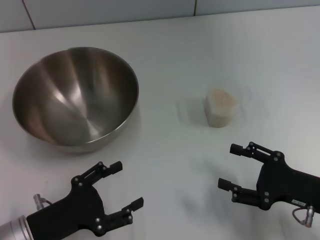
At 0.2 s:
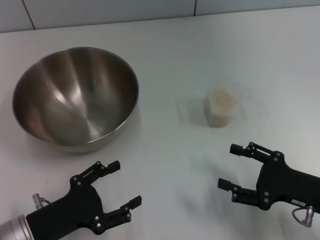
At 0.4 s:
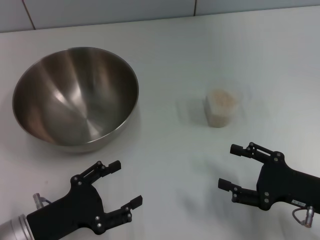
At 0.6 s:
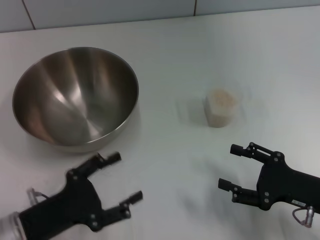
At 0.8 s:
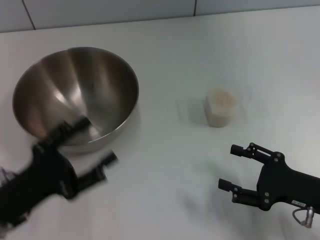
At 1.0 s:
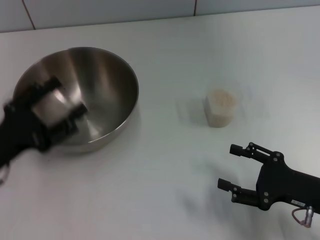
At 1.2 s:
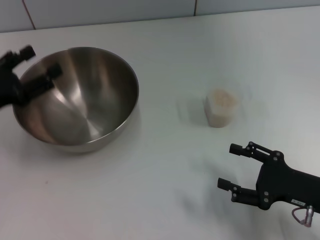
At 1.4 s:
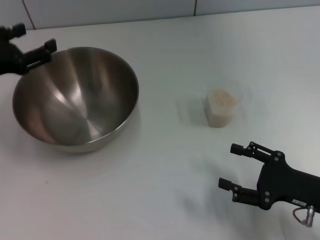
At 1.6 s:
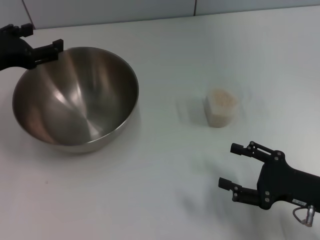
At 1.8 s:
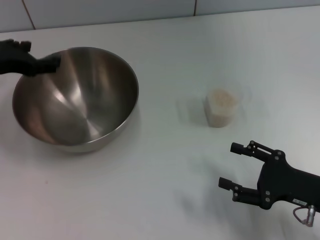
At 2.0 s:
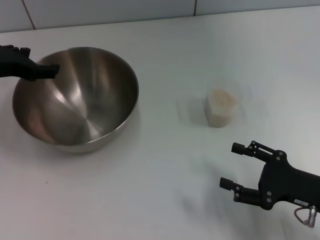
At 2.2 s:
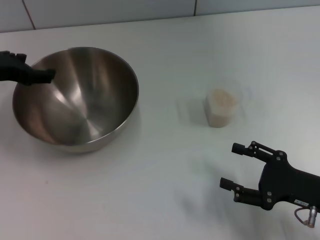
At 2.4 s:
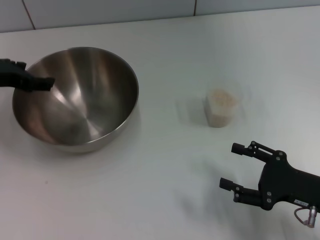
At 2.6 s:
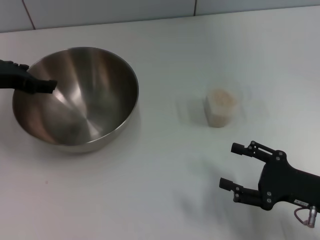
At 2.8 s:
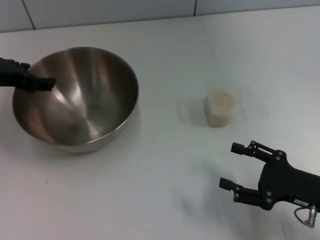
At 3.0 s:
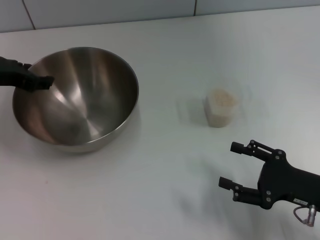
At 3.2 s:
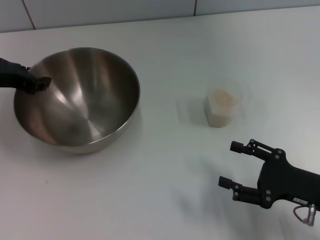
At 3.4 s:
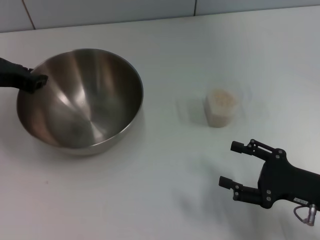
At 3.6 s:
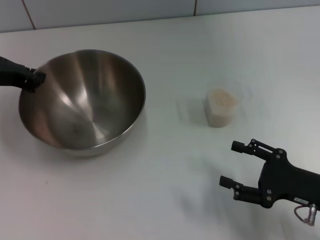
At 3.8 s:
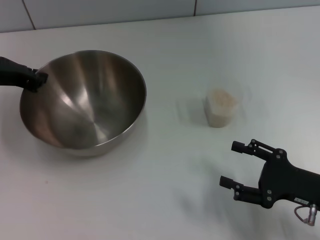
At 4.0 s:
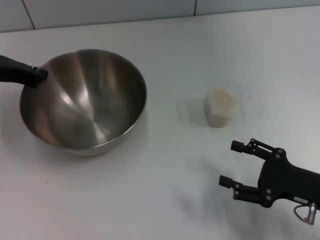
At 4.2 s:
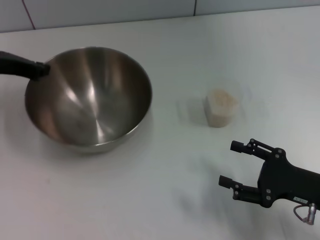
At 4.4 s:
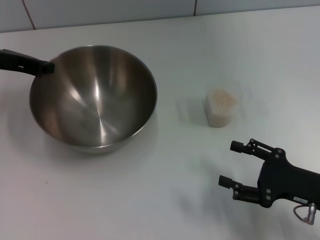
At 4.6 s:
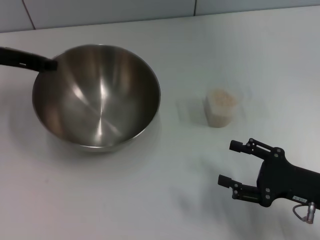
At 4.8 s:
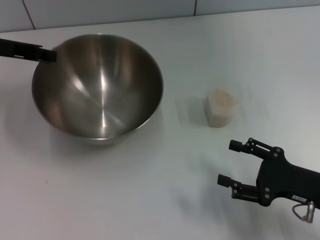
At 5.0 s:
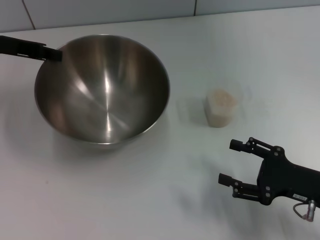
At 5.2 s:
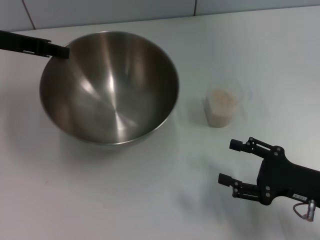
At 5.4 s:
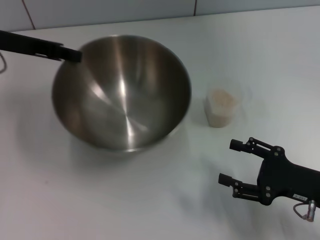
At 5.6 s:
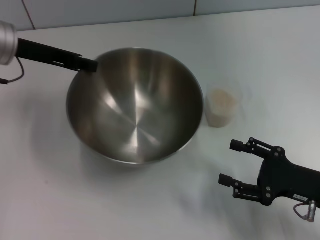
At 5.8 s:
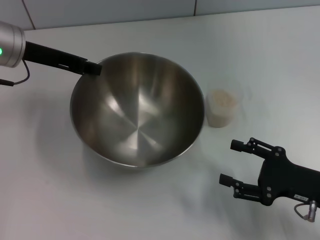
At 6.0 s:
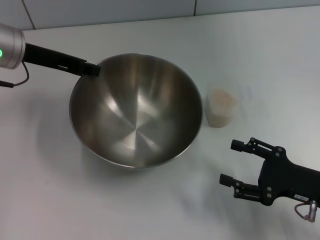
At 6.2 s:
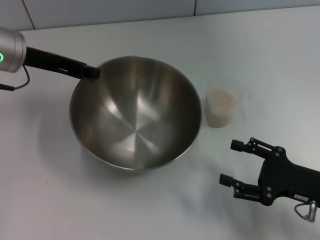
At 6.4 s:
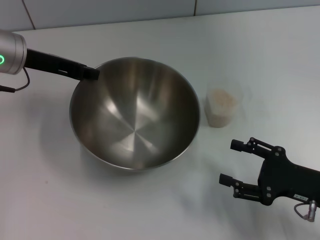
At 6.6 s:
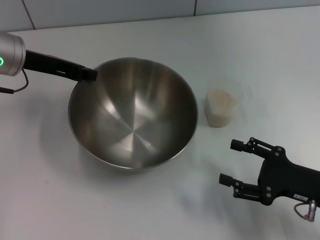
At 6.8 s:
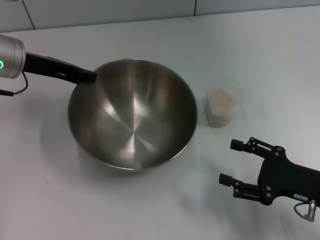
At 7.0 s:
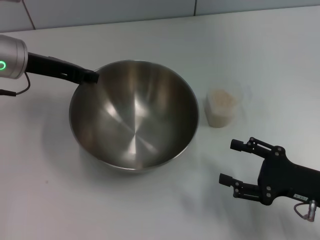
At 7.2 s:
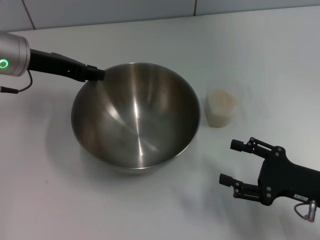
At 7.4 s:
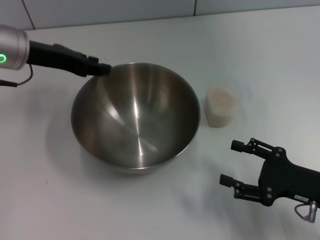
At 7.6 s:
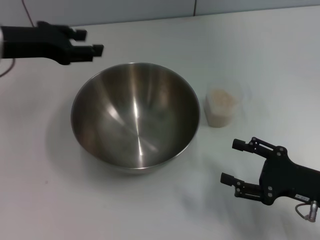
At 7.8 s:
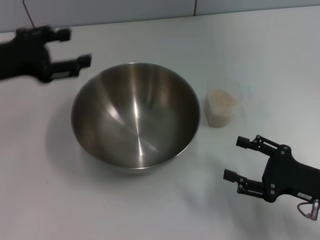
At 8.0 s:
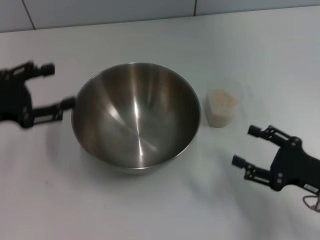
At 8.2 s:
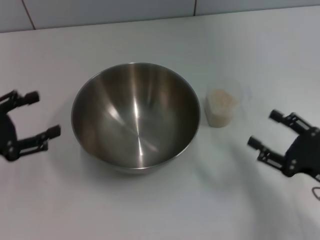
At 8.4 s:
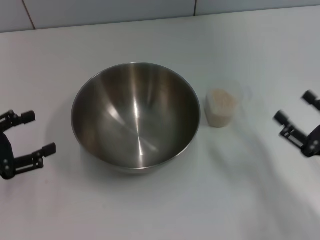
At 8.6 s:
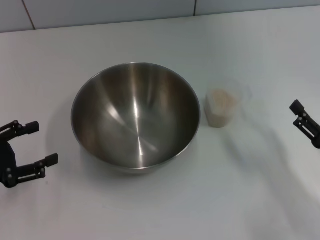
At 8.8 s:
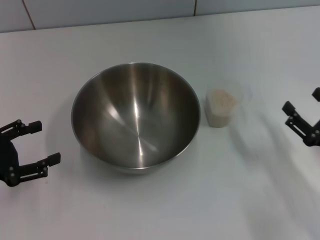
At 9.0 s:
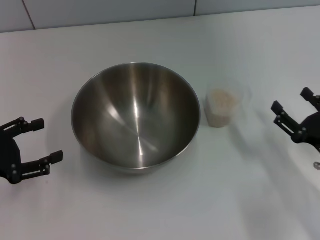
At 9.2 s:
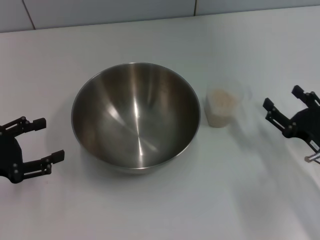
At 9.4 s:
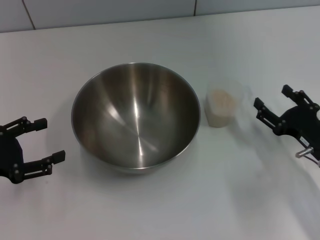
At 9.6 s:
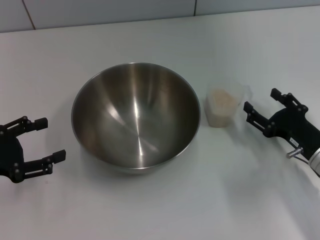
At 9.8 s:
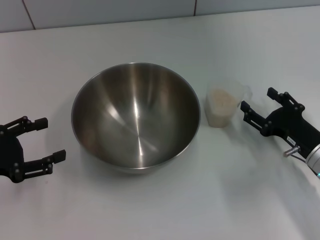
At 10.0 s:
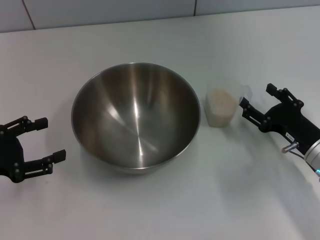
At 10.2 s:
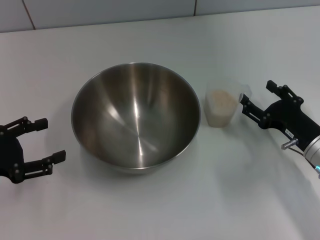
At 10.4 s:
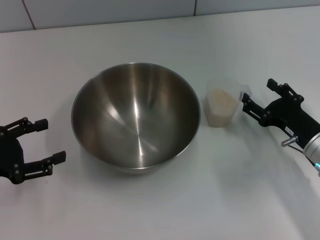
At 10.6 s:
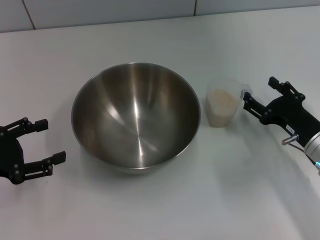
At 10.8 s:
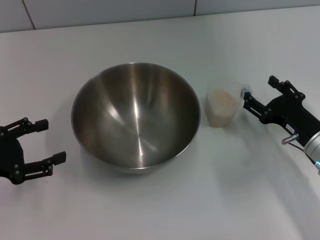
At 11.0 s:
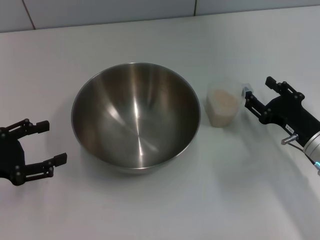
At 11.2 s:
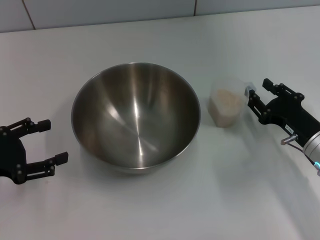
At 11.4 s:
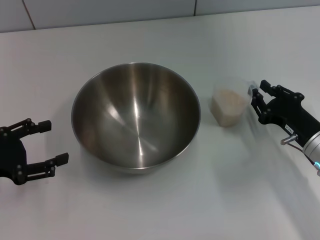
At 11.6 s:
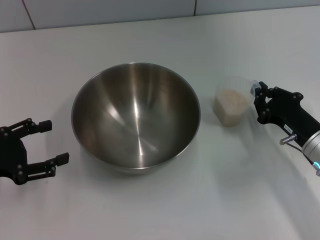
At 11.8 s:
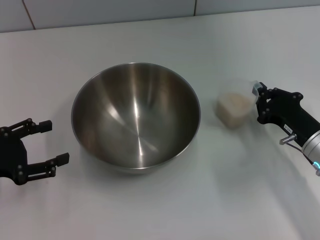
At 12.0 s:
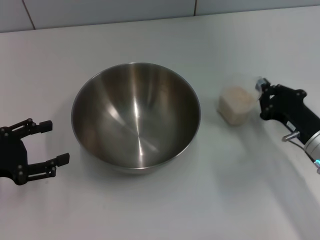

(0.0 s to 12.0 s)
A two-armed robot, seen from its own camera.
Task of the whole recording: Place the bowl in the middle of the table with one hand and pour the rice from the grain cup into it with the other hand.
Step, 0.0 s - 4.6 s: Pick up the bowl with the left gripper.
Step, 4.8 s - 7.6 s: Place the bowl in the center of view with the left gripper.
0.0 s - 1.6 s: The left gripper travels forward and upward by some 20 cm.
3.0 s - 4.4 s: The left gripper closes up.
7.6 s - 9.0 s: The left gripper is displaced backward, downward and to the left by approximately 20 cm, and opens up.
9.0 s - 10.4 s: The right gripper moves forward, approximately 5 cm.
10.4 s - 12.0 s: The right gripper closes its fingers.

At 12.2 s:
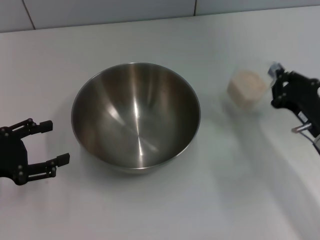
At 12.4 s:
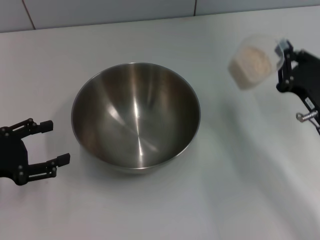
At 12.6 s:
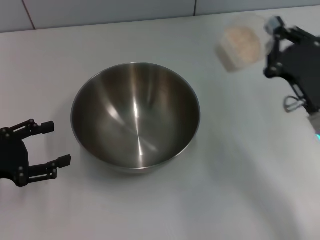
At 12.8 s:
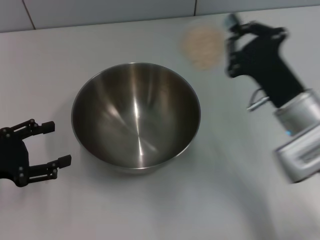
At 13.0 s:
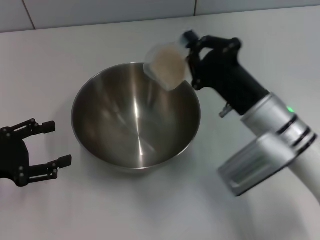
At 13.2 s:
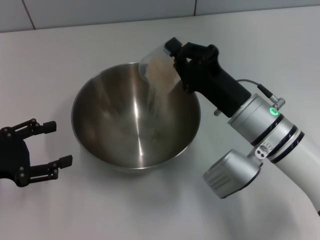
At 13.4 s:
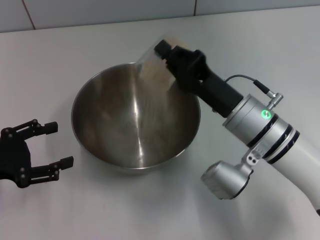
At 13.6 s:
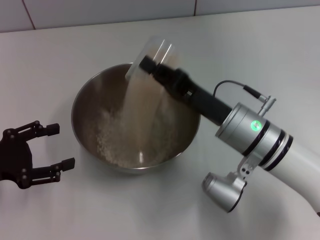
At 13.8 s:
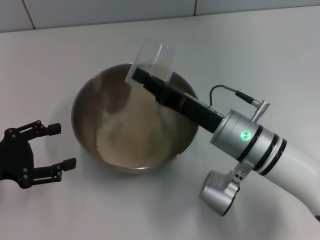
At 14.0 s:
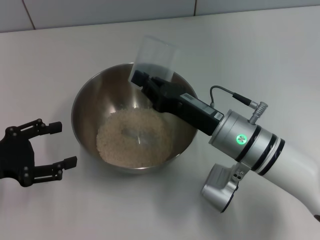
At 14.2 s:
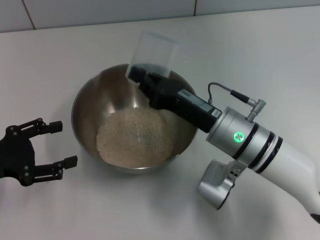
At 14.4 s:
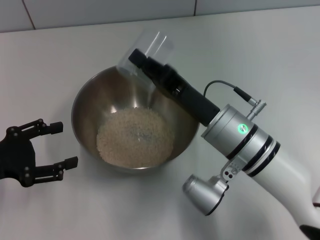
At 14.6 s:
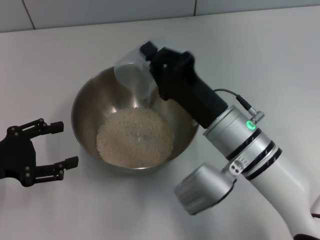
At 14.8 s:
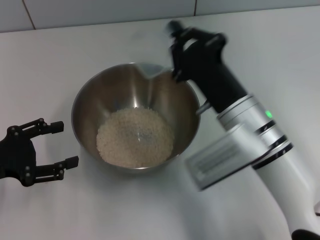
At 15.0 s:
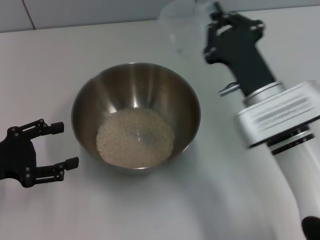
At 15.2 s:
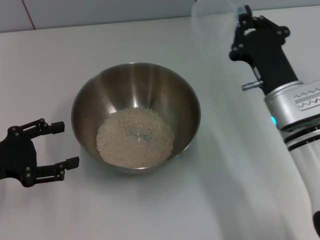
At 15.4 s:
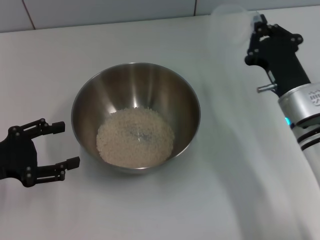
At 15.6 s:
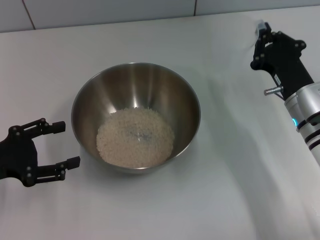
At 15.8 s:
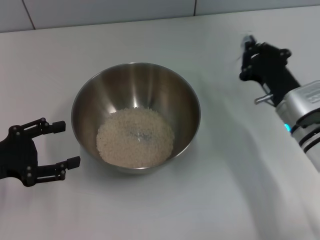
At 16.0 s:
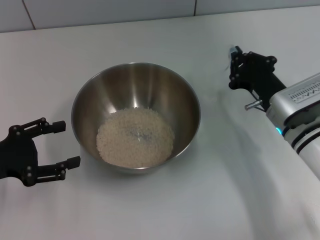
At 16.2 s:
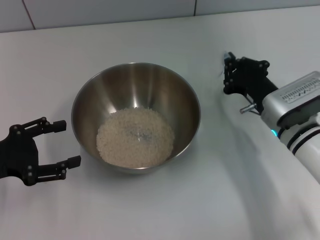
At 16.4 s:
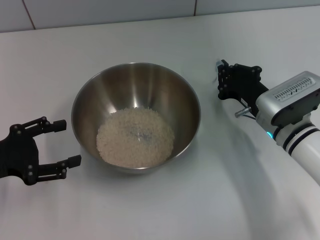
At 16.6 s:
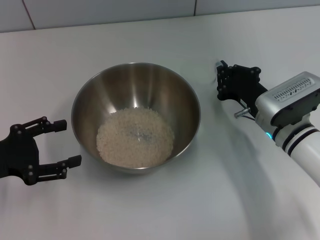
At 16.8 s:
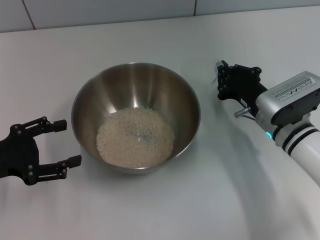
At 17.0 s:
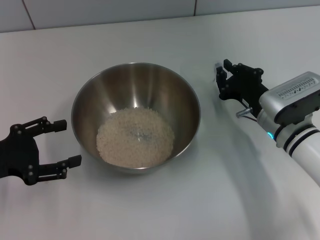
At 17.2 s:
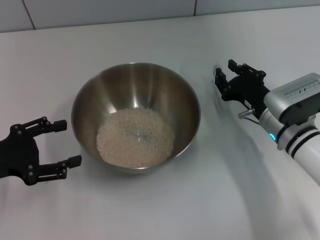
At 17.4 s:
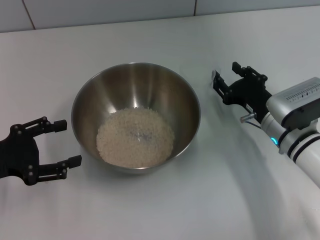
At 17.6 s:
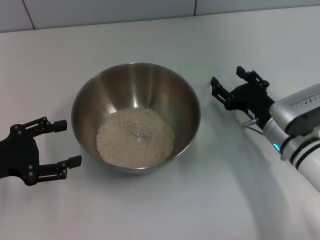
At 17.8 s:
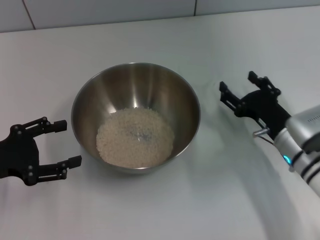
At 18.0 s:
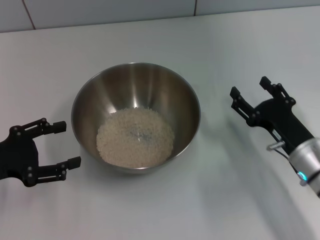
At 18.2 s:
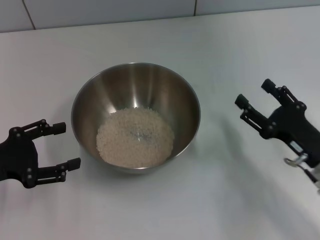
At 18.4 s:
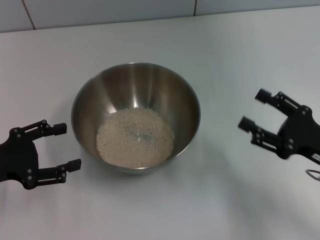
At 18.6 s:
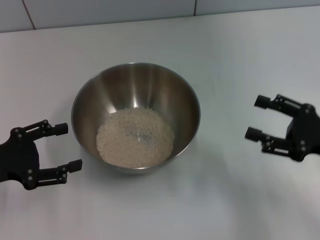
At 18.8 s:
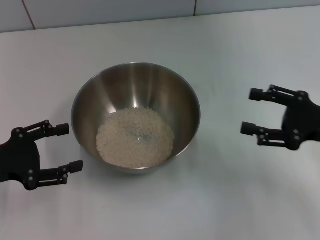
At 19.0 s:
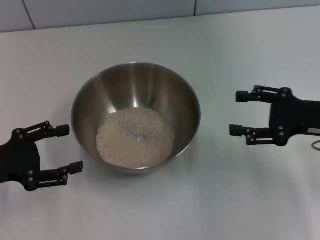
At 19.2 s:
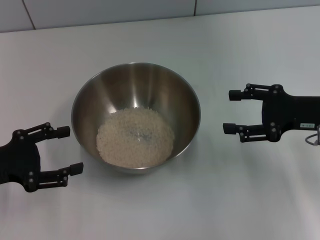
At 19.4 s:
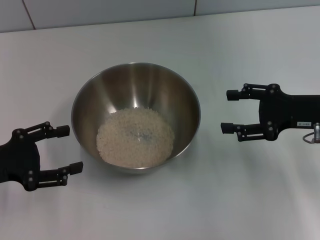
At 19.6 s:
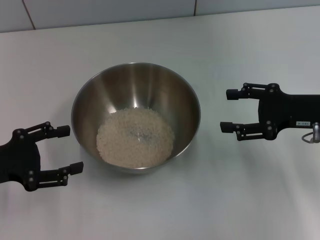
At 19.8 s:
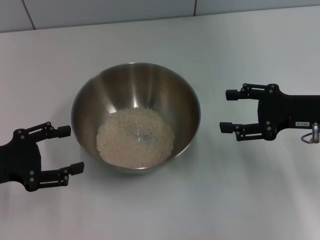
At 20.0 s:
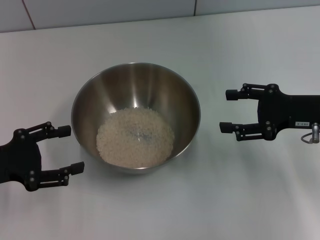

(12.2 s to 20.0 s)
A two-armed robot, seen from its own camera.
Task of the whole recording: Place the bowl in the middle of the table with one hand and pour the rice from the grain cup into it with the other hand.
Step, 12.6 s - 14.8 s: Pour the rice from the cup into the bowl with the right gripper.
Step, 15.0 s - 17.6 s: Place the cup on the table with the right gripper.
12.2 s - 13.8 s: The right gripper goes about 15 cm to the left.
13.8 s - 15.4 s: The right gripper travels to the right by approximately 10 cm.
16.8 s - 18.4 s: The right gripper shifts roughly 15 cm backward and to the right, and opens.
18.4 s - 20.0 s: The right gripper moves forward, approximately 10 cm.
